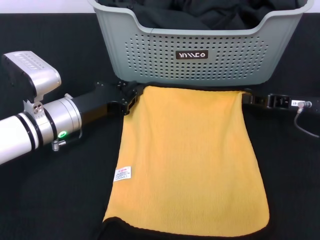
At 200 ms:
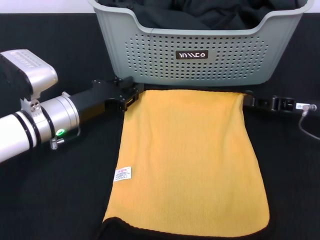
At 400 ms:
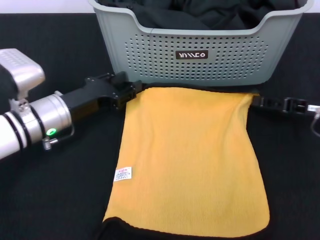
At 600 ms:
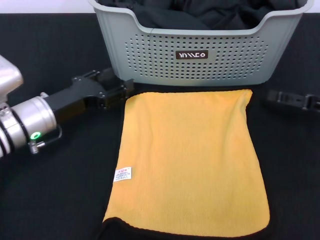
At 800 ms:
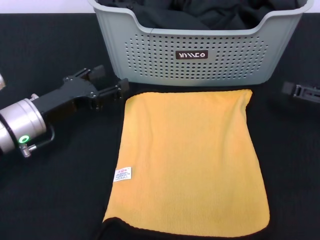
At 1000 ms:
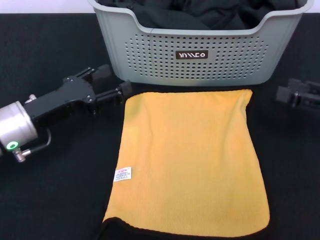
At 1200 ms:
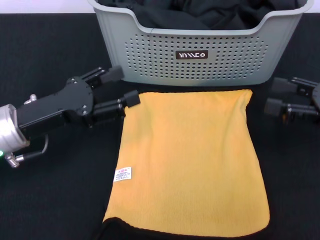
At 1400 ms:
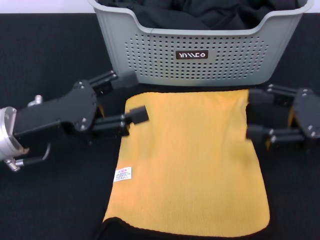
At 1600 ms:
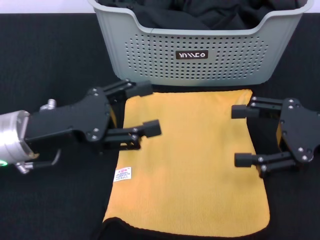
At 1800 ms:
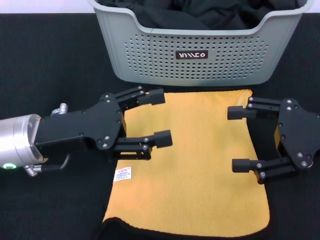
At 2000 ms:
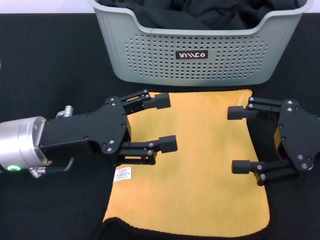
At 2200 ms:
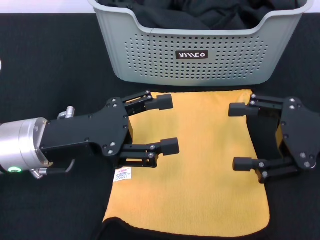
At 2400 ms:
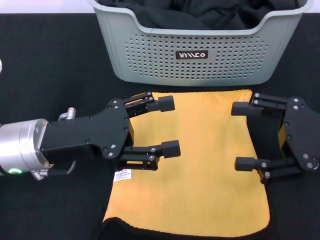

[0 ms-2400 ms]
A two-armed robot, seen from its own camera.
Task of the whole recording: pick up the towel from the storage box and lay it flat on the black tablecloth.
0 ms to 1200 ms: The right gripper heads backward and upward, covering some 10 cm, and opens its fingers. The left gripper heads upward and backward, covering about 10 cm, and opens.
1200 ms to 2400 ms: The right gripper shifts by roughly 5 cm.
